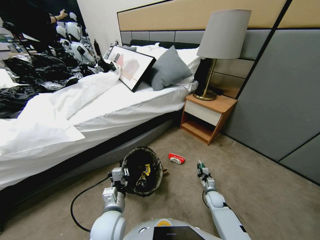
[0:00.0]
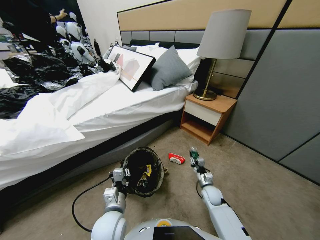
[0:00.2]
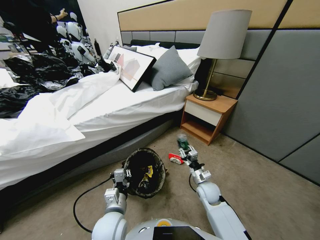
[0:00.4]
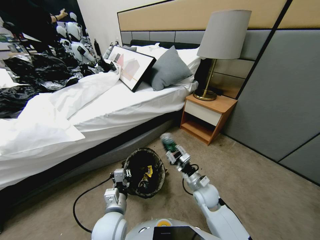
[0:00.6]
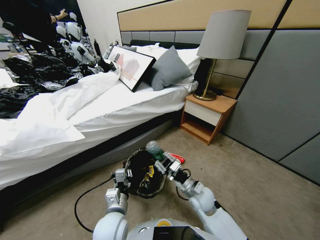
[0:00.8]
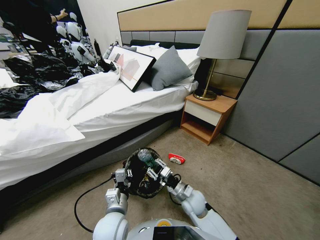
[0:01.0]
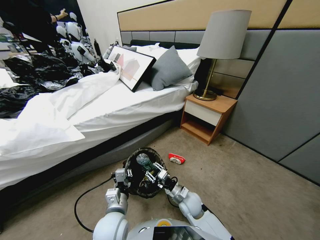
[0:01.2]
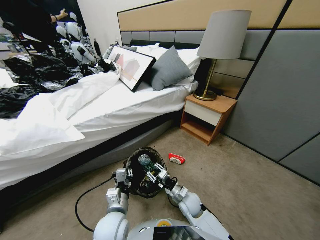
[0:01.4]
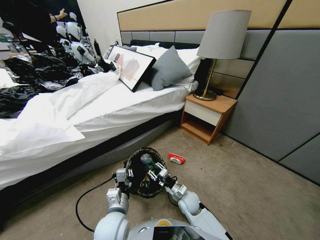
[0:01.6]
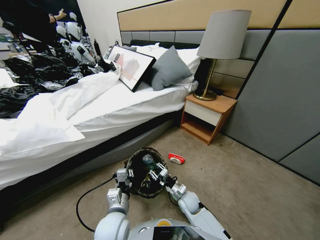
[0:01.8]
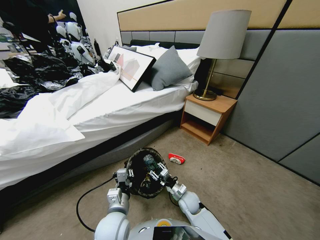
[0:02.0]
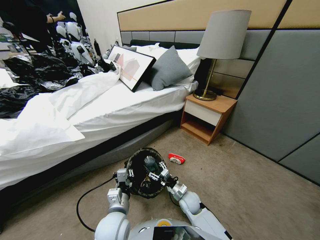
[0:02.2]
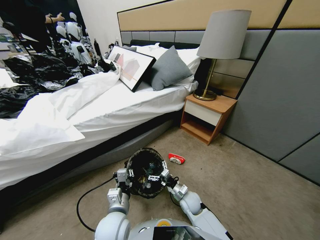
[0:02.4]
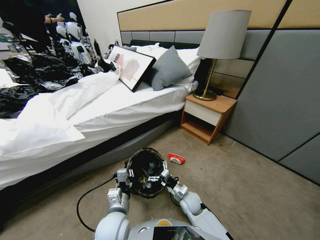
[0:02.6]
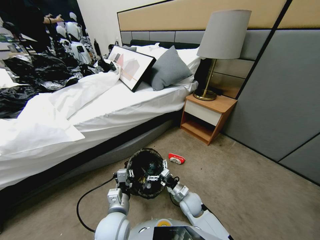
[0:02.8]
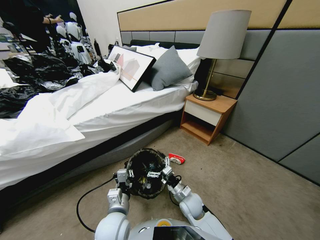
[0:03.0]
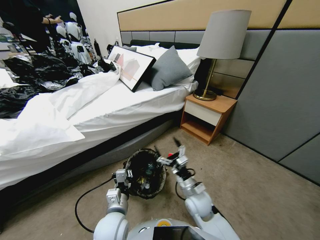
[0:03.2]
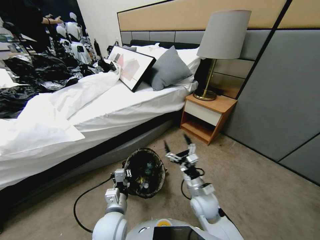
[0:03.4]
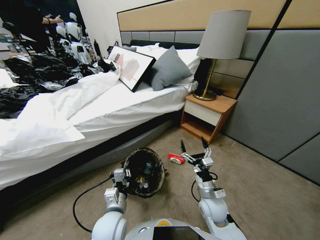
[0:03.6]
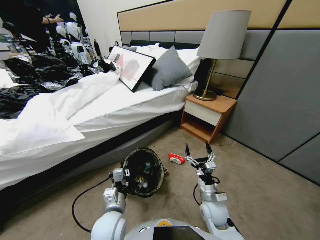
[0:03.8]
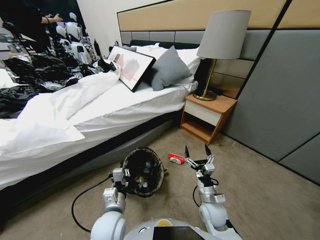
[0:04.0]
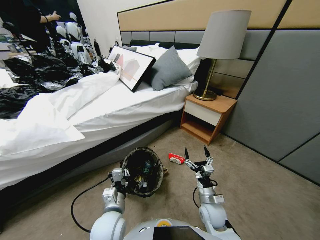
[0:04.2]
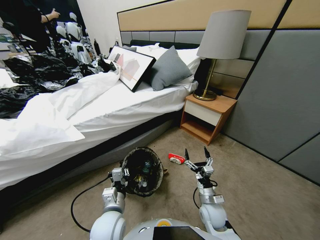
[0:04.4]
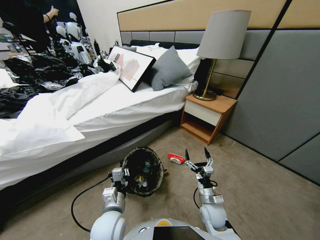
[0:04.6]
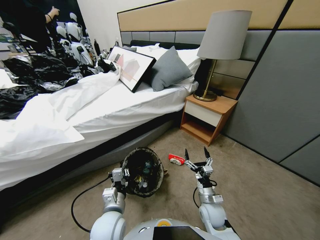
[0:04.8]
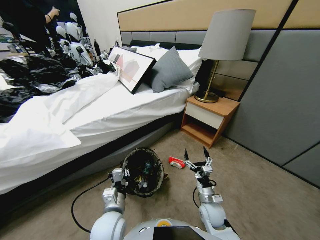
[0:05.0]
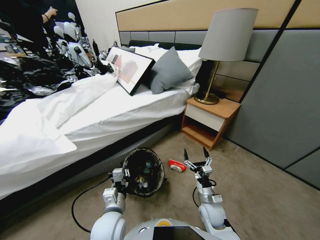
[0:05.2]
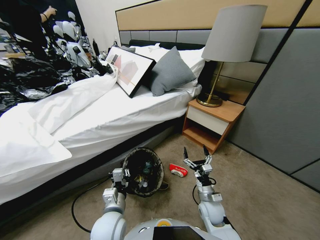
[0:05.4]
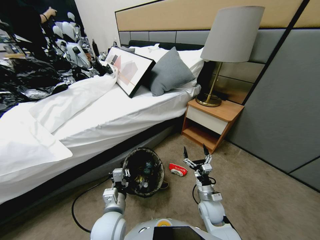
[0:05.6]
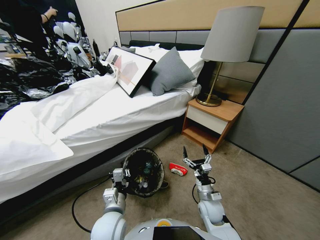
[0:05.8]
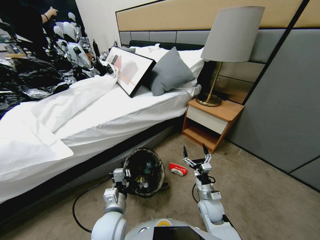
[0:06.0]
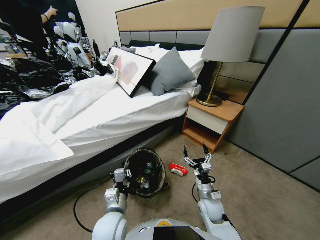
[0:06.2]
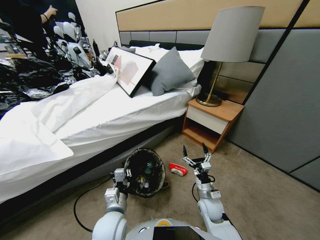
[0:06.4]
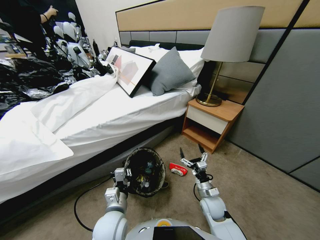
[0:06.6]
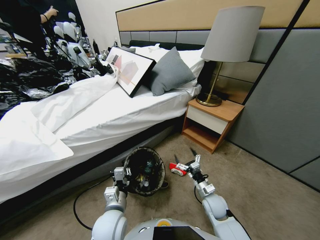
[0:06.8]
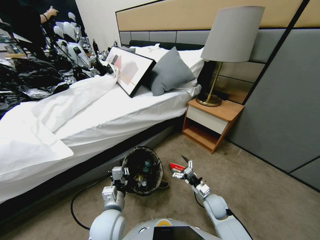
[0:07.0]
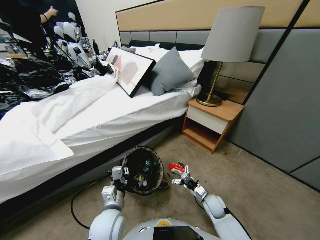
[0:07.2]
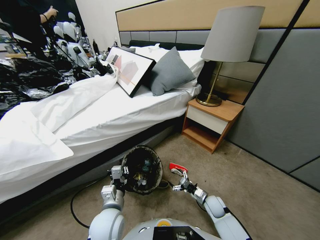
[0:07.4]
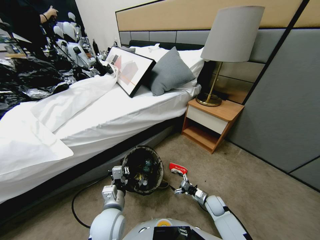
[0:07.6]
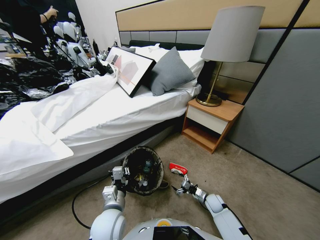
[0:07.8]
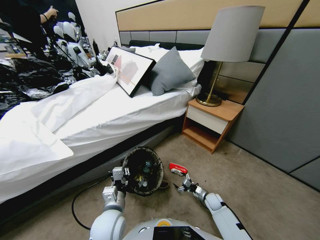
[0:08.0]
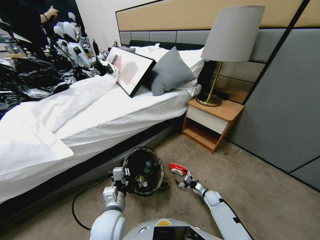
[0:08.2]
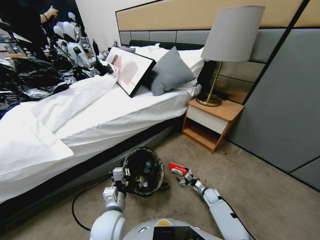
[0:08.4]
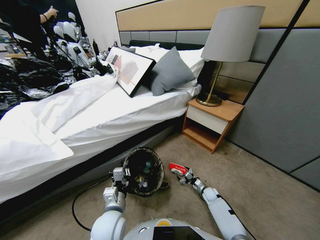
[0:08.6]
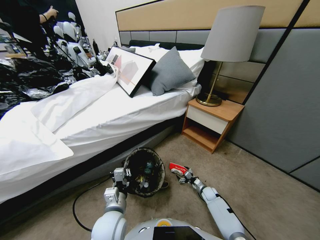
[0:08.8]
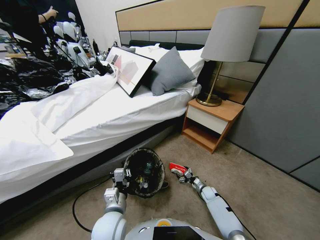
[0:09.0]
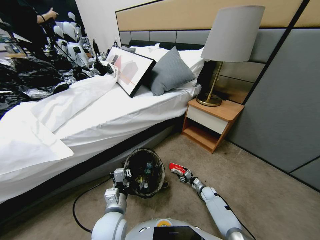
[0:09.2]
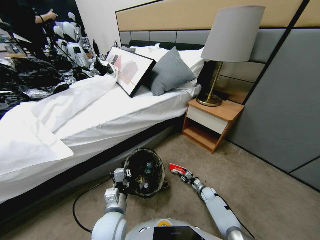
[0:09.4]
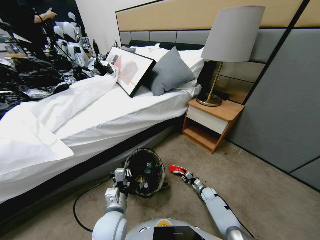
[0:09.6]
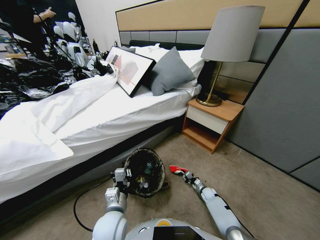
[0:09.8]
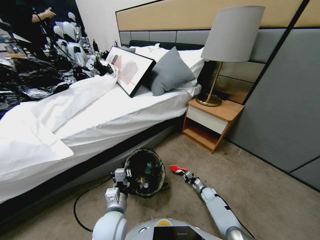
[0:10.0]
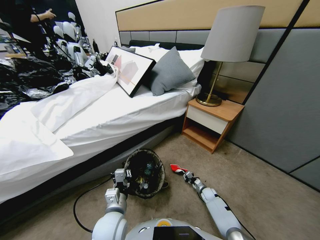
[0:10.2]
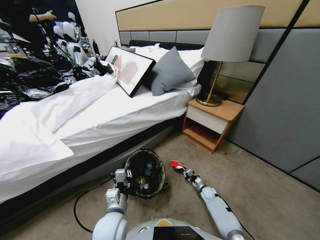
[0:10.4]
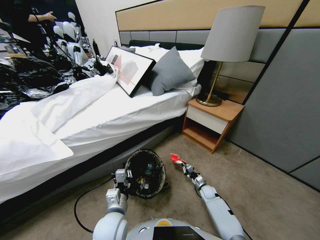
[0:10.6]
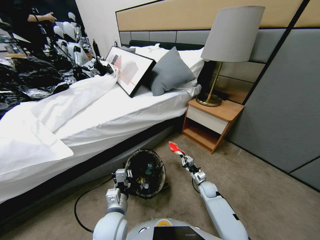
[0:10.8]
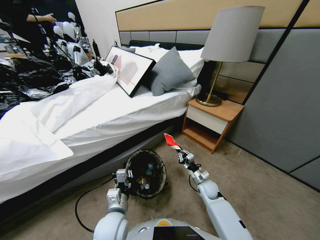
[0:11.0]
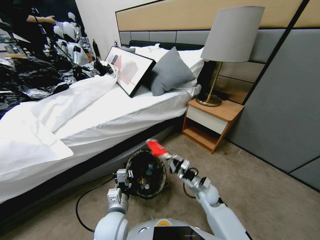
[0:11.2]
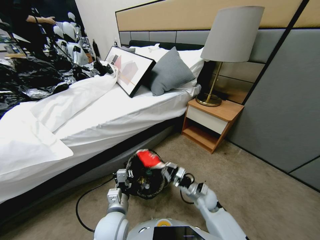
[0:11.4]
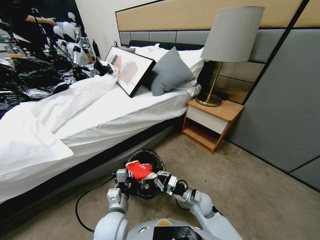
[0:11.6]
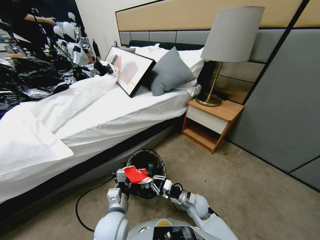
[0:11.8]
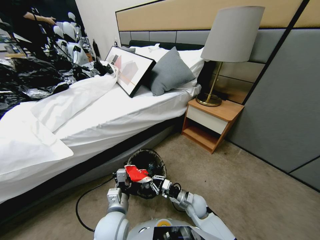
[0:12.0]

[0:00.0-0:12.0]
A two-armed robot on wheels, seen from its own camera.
Task of the whole recording: Pick up the trash bin, then pick up the garbage from the floor and place it into the trash bin.
0:00.0 to 0:01.6: The right gripper heads to the left, covering roughly 15 cm.
0:01.6 to 0:03.0: The right gripper heads upward, covering approximately 10 cm, and opens its fingers.
0:03.0 to 0:04.4: The right gripper heads to the right, covering approximately 10 cm.
0:06.0 to 0:07.6: The right gripper is displaced downward and to the right by about 15 cm.
0:07.6 to 0:09.0: The right gripper heads downward and forward, covering about 10 cm.
0:09.0 to 0:10.4: The right gripper closes up.
0:10.4 to 0:12.0: The right gripper travels to the left, upward and backward by approximately 20 cm.

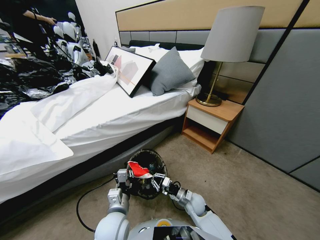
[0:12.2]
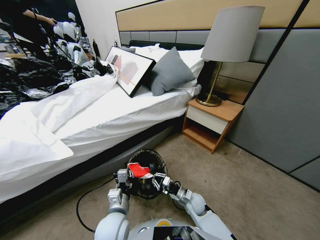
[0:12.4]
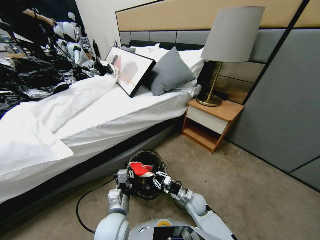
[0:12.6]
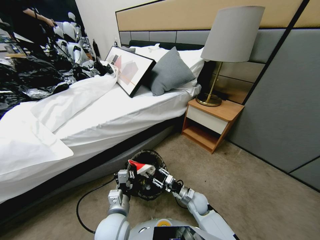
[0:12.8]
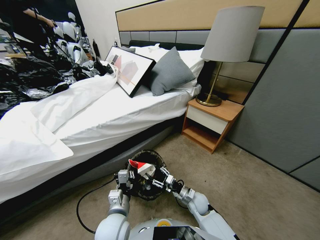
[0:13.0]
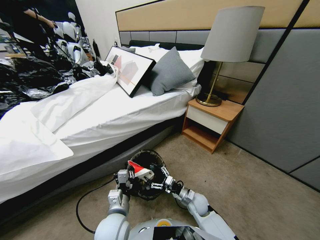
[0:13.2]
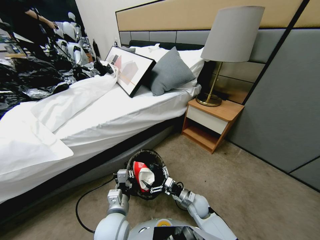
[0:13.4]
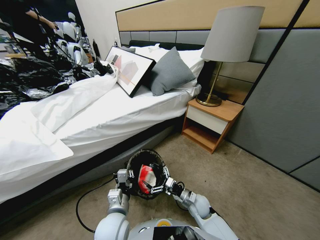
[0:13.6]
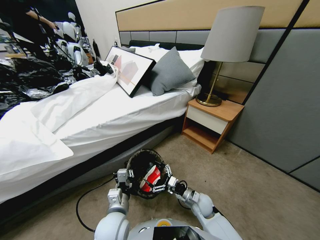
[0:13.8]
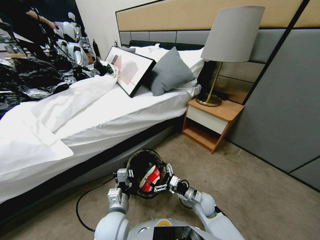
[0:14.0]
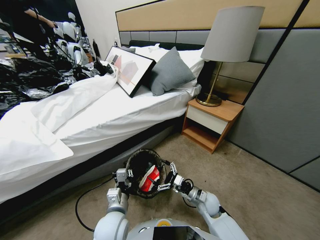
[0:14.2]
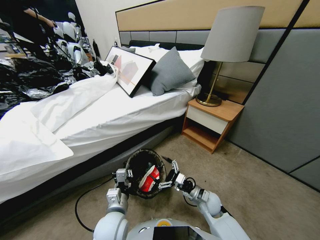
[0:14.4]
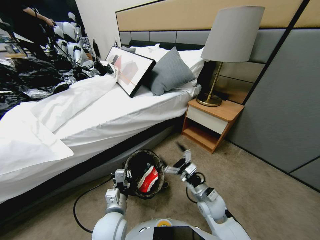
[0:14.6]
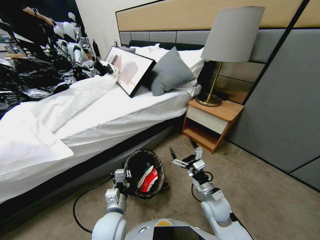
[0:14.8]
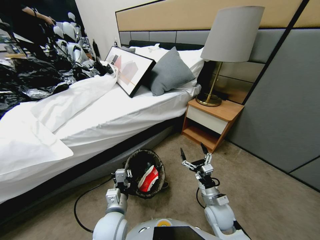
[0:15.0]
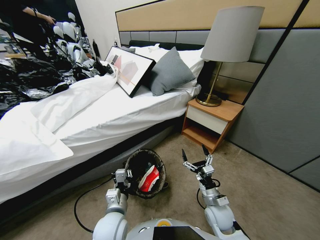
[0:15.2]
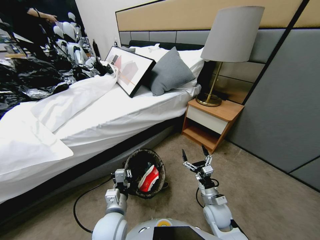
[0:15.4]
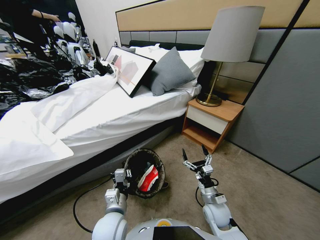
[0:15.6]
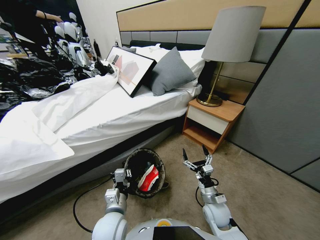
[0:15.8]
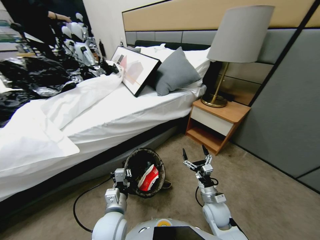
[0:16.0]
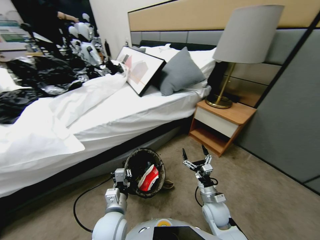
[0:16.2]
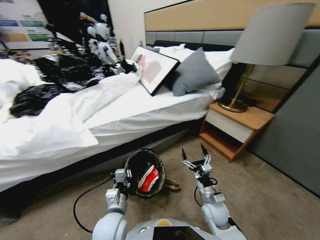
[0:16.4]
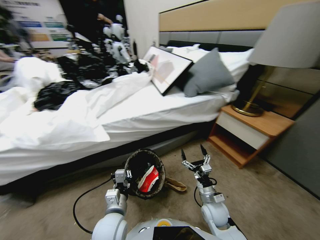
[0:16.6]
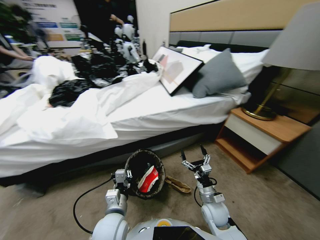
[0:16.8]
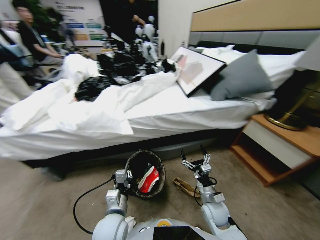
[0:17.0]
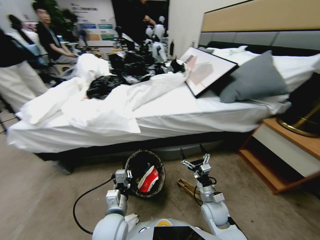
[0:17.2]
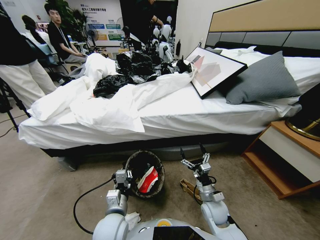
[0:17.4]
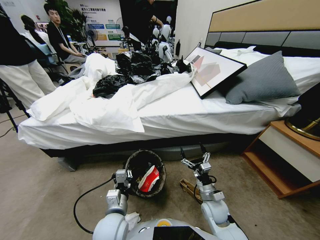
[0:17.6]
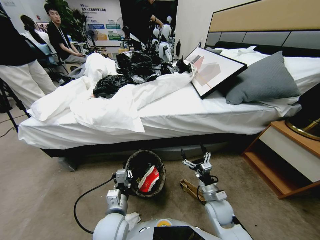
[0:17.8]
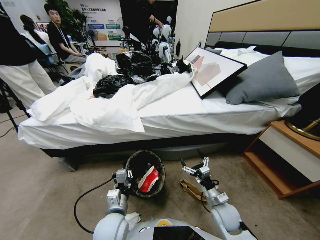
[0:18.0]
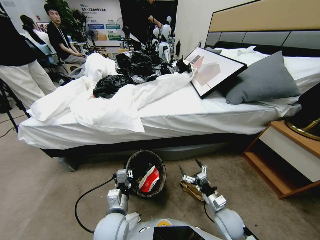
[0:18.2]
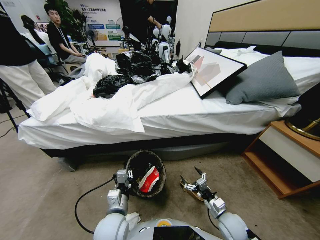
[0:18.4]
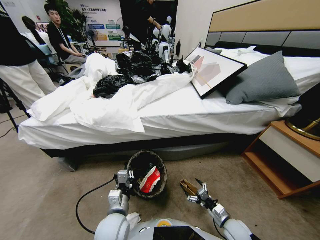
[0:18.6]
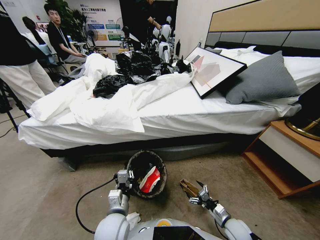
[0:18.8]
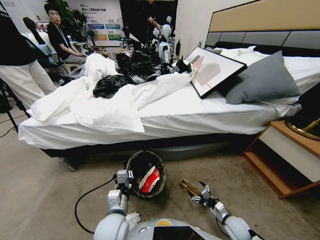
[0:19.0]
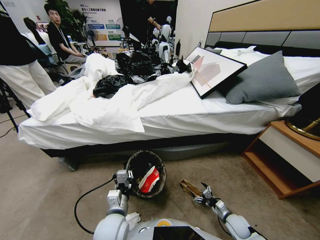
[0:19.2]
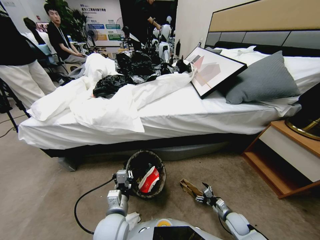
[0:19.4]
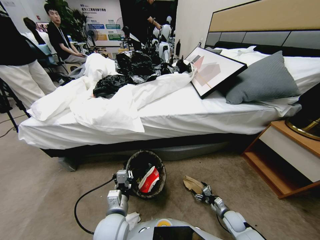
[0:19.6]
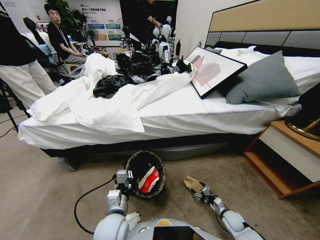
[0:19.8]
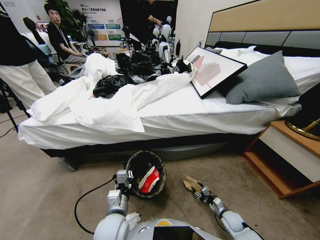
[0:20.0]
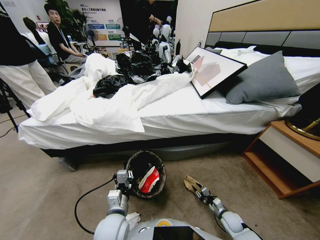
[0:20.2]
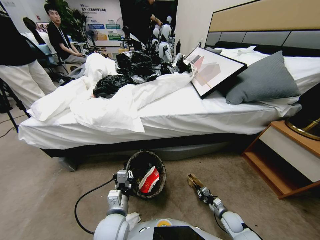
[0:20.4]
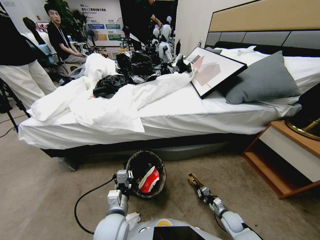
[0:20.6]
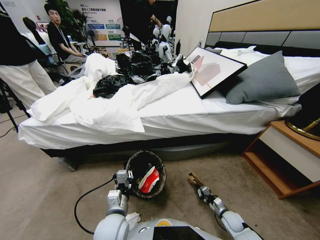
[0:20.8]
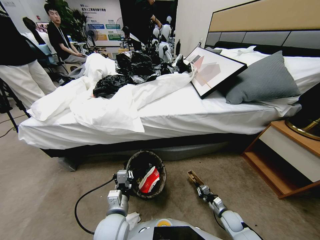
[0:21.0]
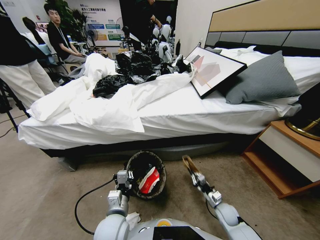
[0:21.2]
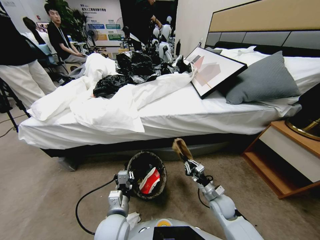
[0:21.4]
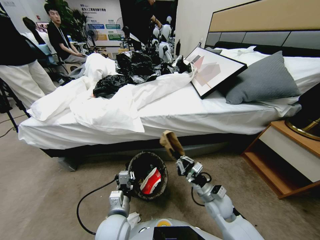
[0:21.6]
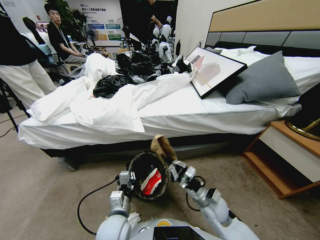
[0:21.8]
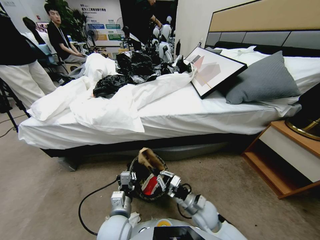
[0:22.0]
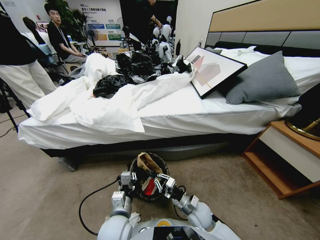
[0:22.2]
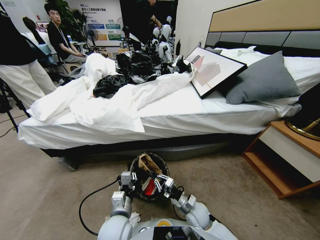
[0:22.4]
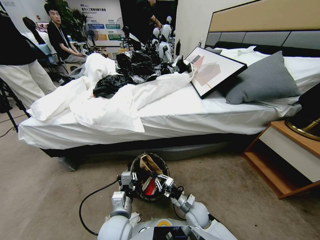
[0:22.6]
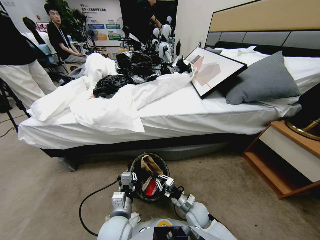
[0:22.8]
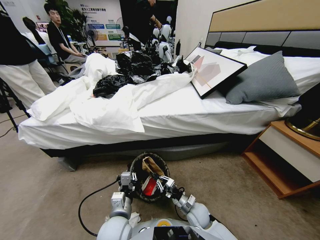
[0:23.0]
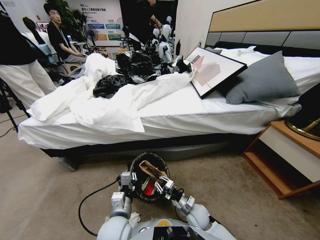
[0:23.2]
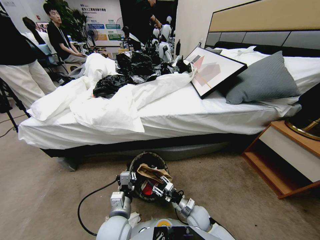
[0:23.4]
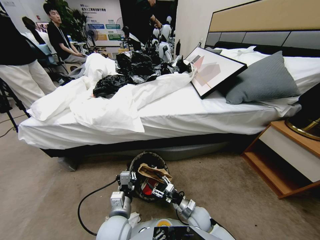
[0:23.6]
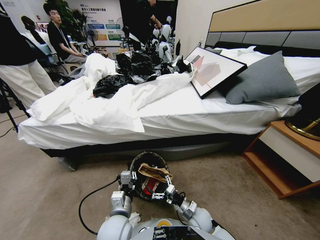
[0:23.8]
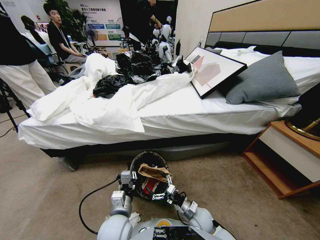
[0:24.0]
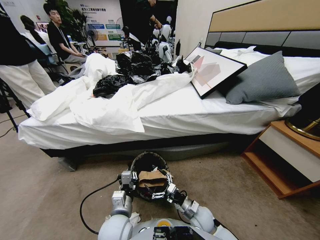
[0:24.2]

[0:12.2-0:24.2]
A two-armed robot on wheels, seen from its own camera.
Task of the whole recording: Pick up the trash bin, then pick up the garbage from the floor and place it into the trash bin.
0:12.2 to 0:13.8: The right gripper opens up.
0:13.8 to 0:15.2: The right gripper ends up some 5 cm from where it was.
0:16.6 to 0:18.2: The right gripper moves to the right, some 5 cm.
0:18.2 to 0:19.8: The right gripper shifts some 15 cm downward and to the right, and closes up.
0:19.8 to 0:21.2: The right gripper heads upward and to the left, covering approximately 15 cm, and closes up.
0:21.2 to 0:22.6: The right gripper shifts about 15 cm to the left.
0:22.6 to 0:24.2: The right gripper opens.
